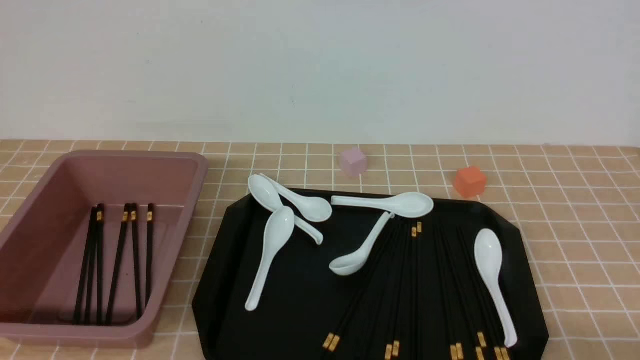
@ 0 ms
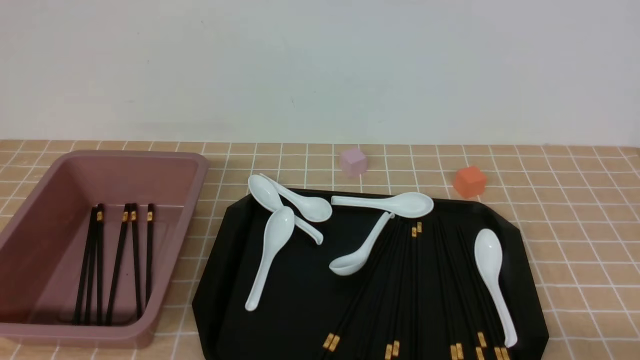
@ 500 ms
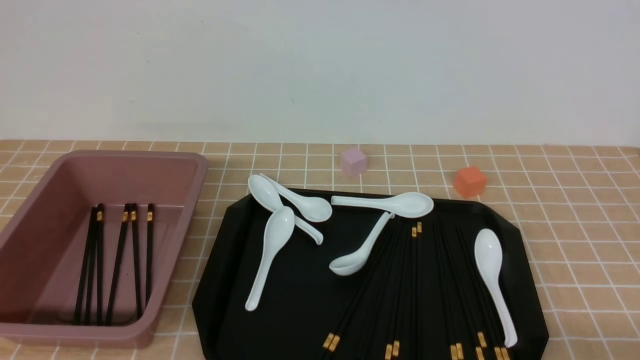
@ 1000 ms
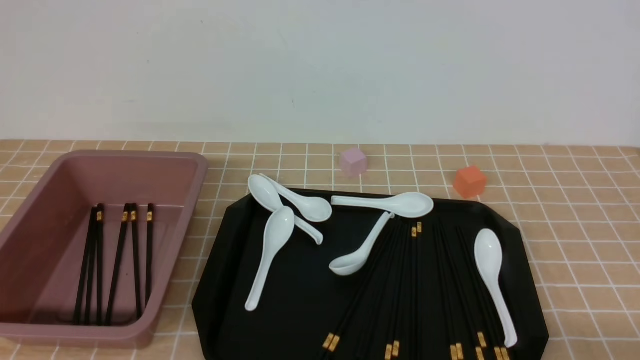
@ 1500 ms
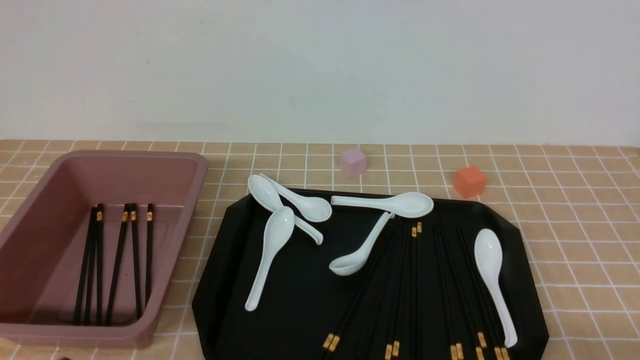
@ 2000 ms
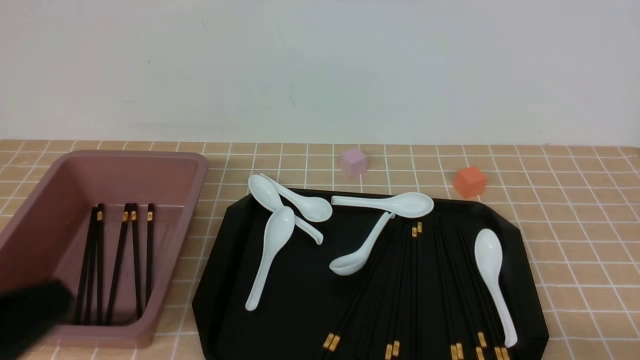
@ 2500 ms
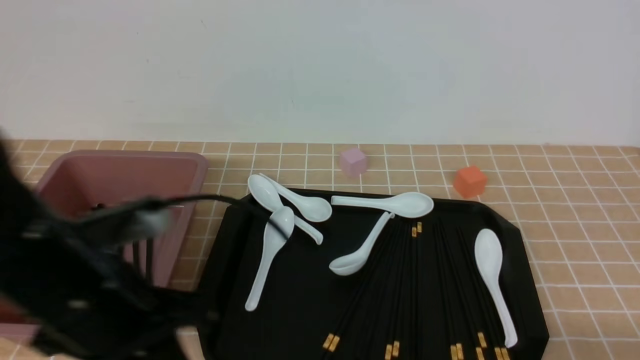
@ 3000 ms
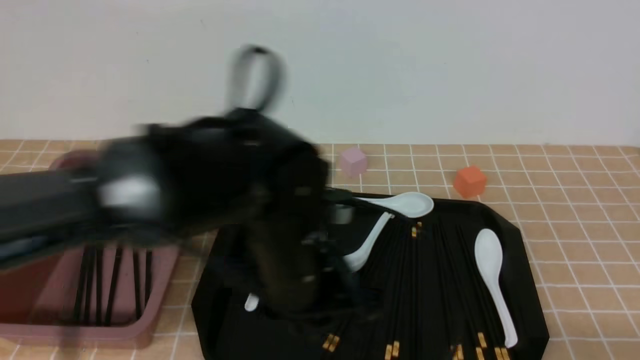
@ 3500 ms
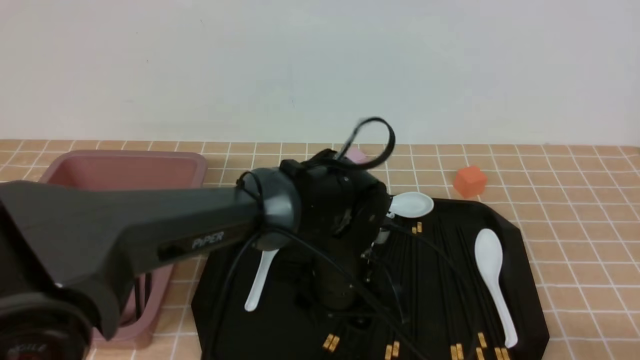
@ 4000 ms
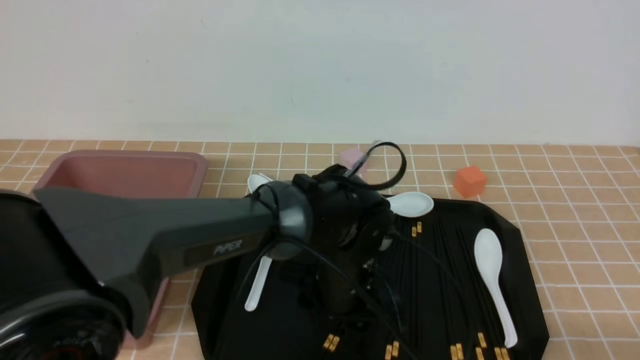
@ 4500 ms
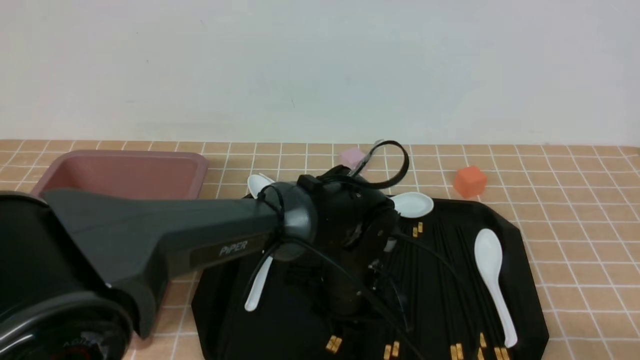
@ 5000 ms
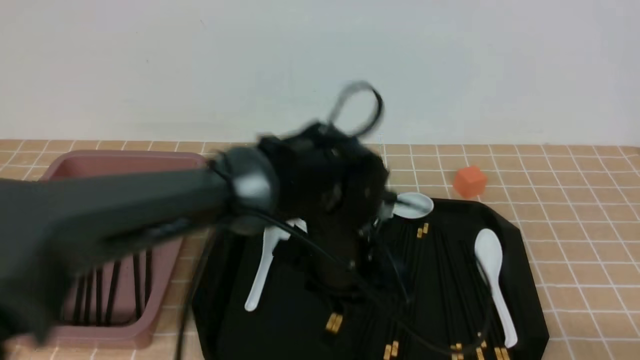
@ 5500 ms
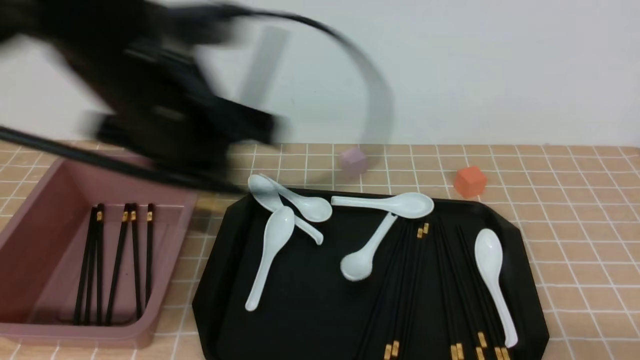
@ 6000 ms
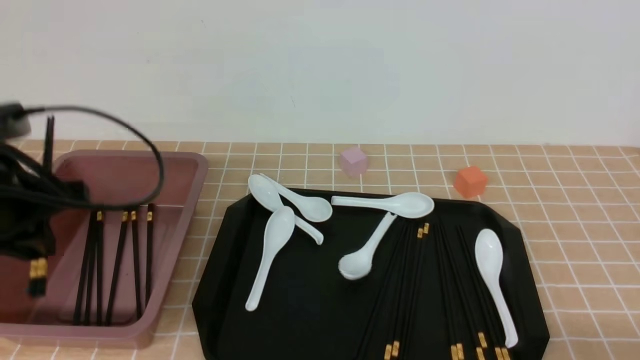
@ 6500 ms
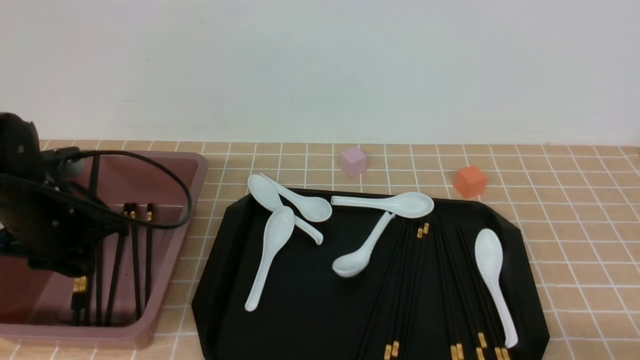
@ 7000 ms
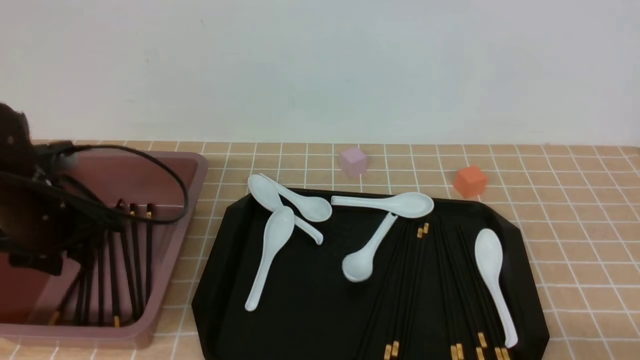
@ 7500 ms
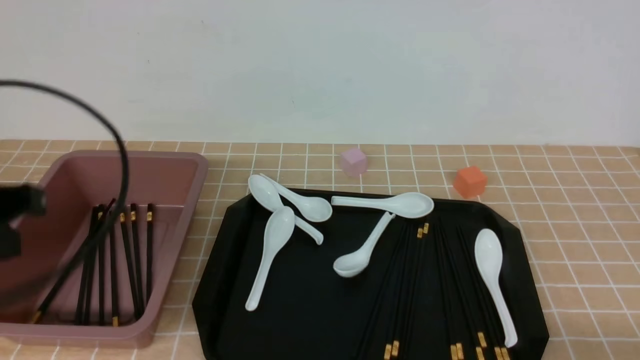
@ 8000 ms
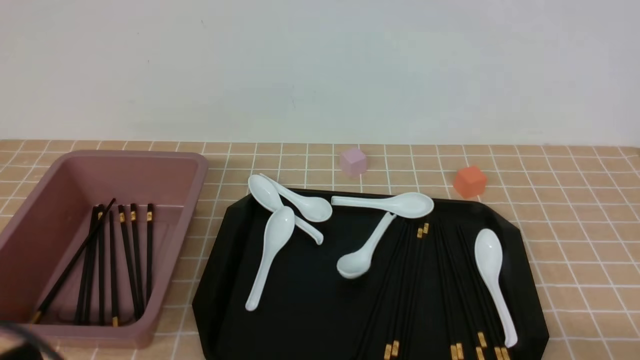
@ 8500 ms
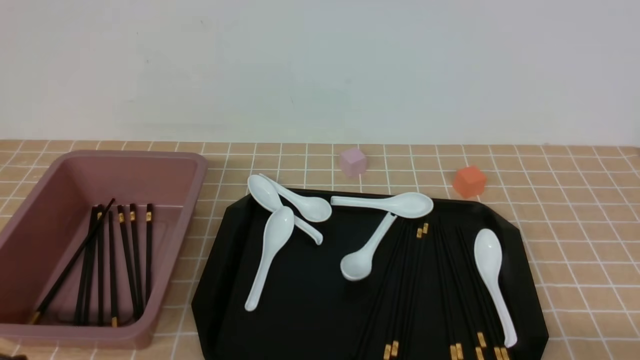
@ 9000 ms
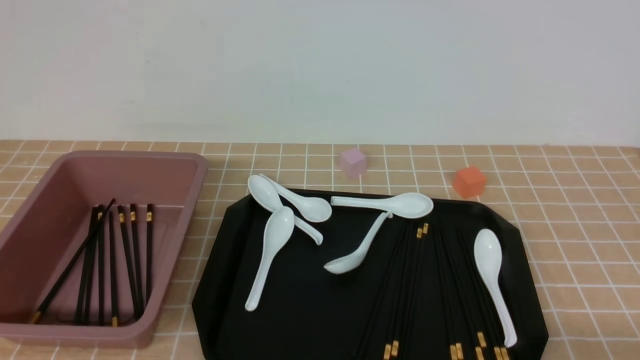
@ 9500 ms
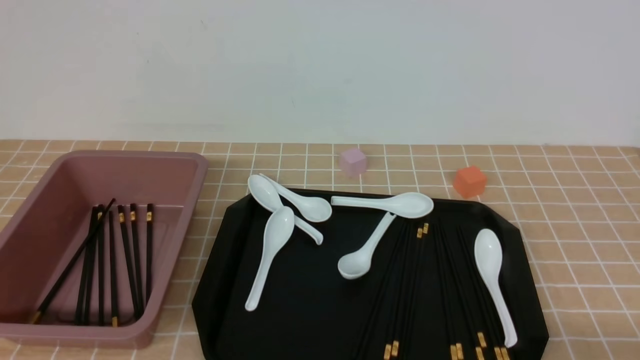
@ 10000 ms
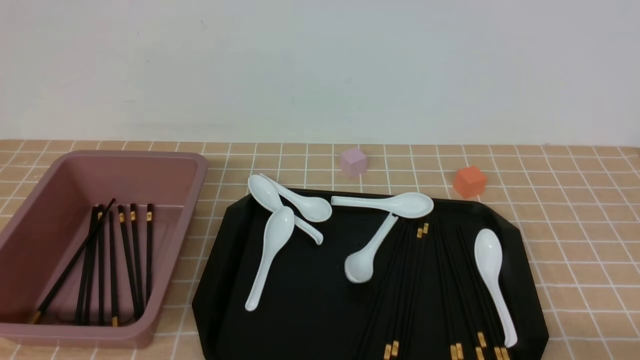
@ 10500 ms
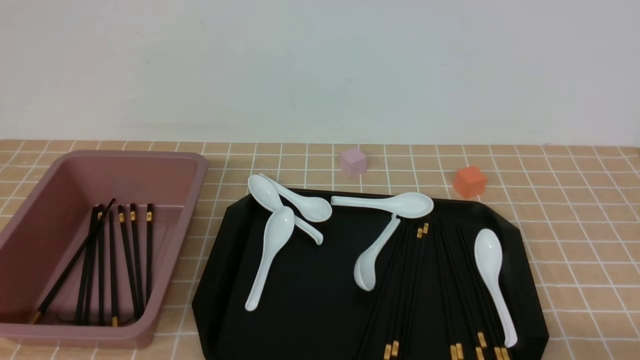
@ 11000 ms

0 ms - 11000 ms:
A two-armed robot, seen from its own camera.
Step, 0 ms - 5500 ms: use the left arm to grab a pair of chopsticks.
Step, 6000 ms - 7500 ms: use the left arm to put the chopsticks into the lunch box.
2000 ms - 3500 ms: The left gripper shifts approximately 30 cm to the right and forward.
3500 ms - 5500 ms: The left gripper goes downward and returns, approximately 10 cm each way, and opens and closes again.
5500 ms - 7500 ms: The left gripper is displaced to the left by roughly 30 cm.
7500 ms - 9000 ms: The left gripper moves backward, approximately 25 cm, and closes up.
